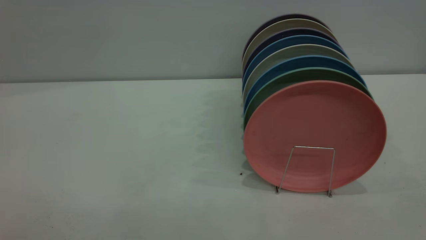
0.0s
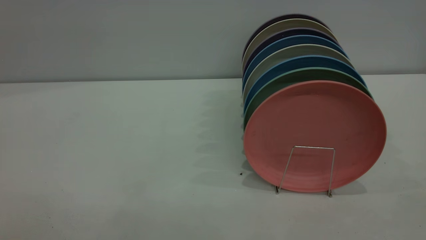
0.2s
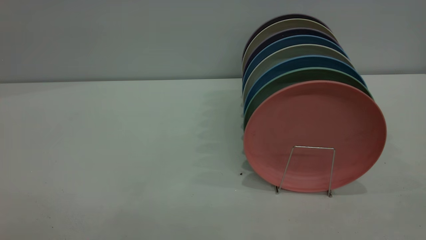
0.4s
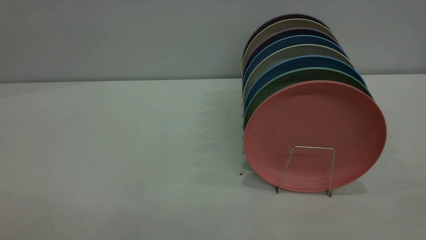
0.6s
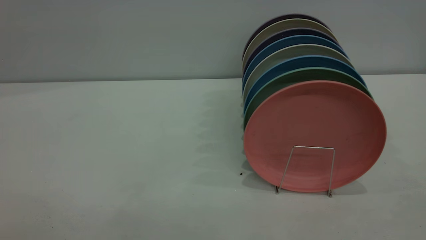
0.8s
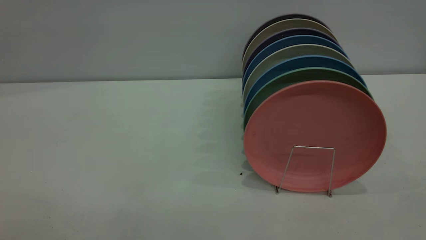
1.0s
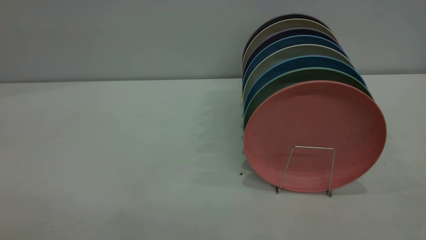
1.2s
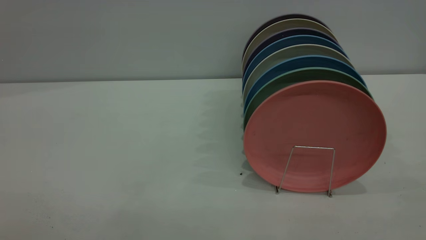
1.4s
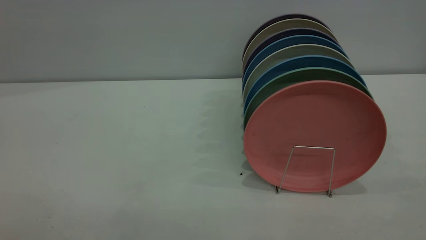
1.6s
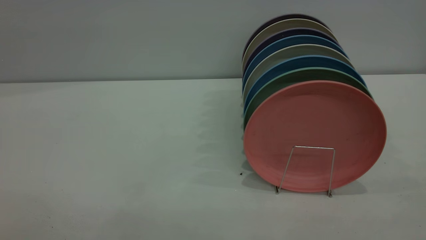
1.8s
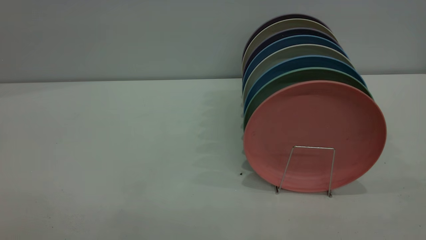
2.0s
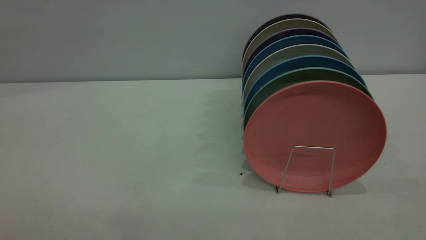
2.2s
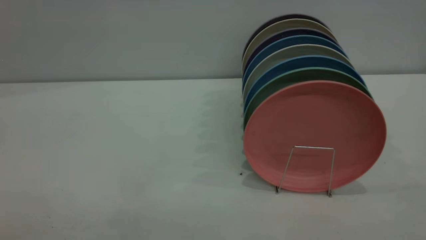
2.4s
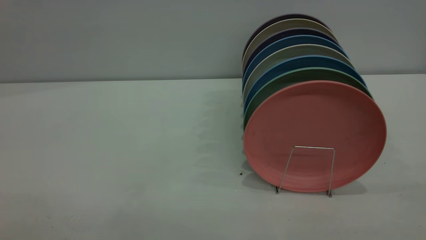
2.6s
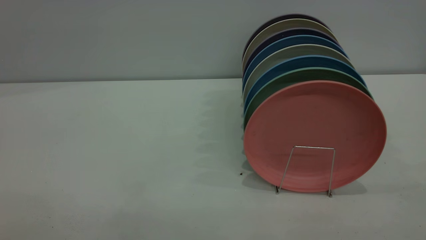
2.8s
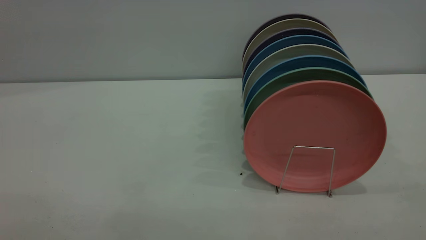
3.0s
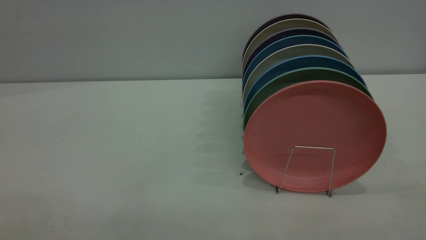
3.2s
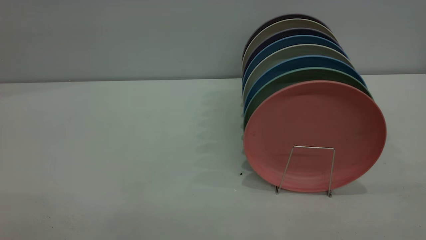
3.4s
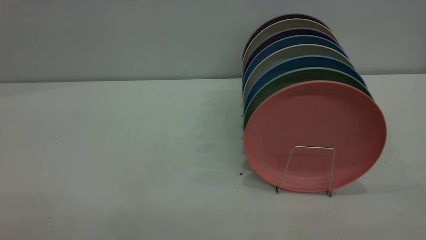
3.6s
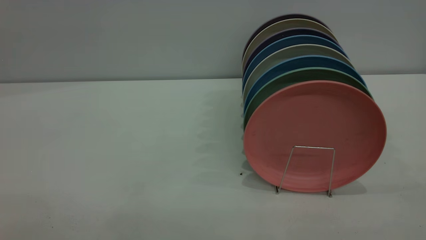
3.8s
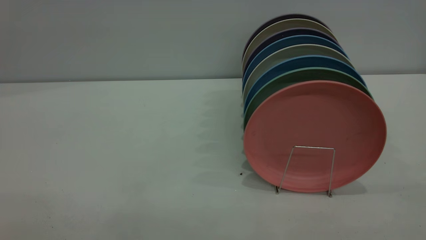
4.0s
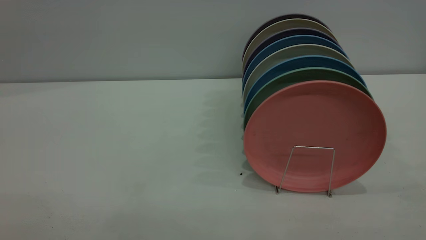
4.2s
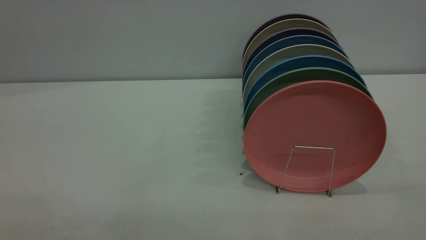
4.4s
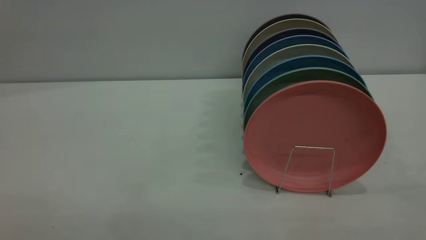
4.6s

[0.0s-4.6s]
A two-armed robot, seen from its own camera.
Task of the whole recording: put the plate on the plate rack.
3.0s to 4.6s: Both grippers stay about where they are.
